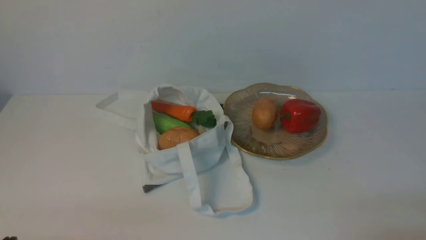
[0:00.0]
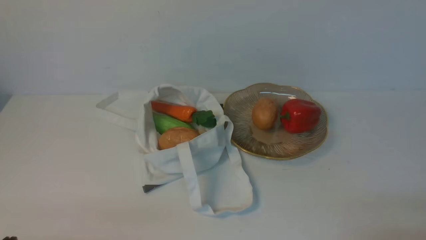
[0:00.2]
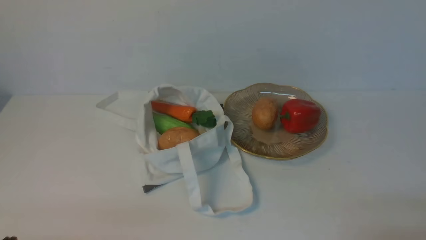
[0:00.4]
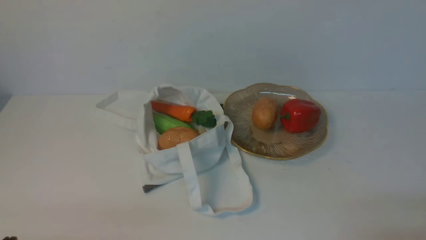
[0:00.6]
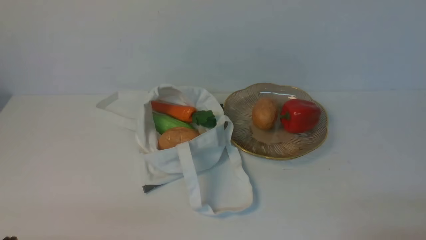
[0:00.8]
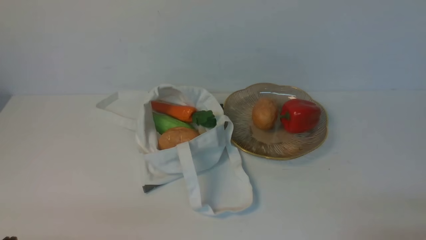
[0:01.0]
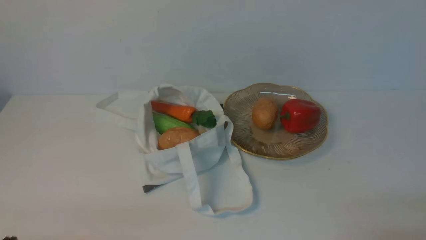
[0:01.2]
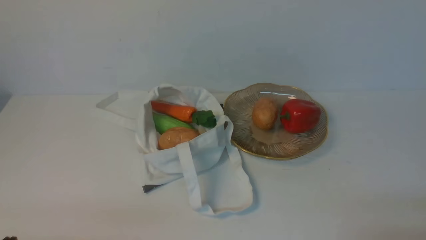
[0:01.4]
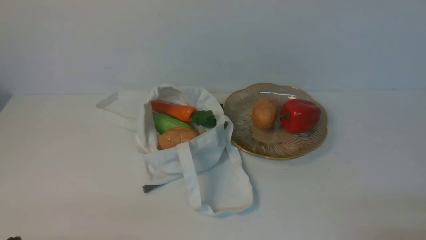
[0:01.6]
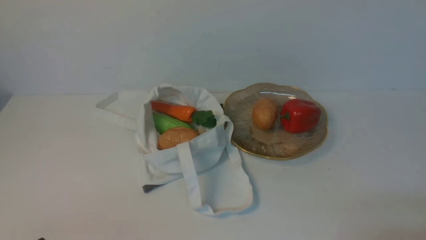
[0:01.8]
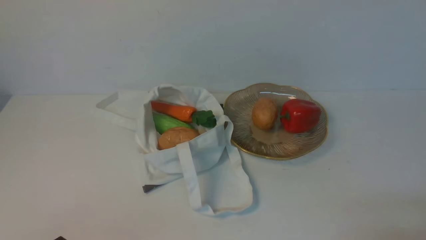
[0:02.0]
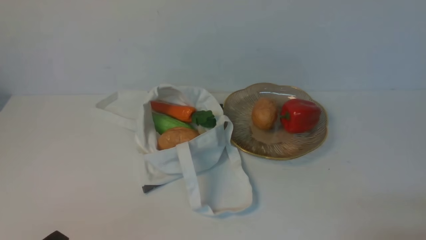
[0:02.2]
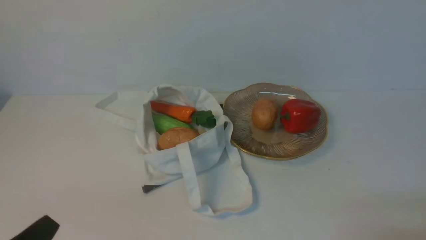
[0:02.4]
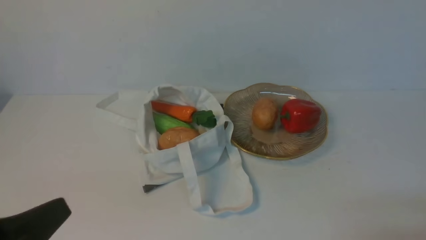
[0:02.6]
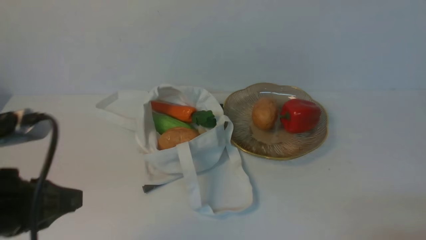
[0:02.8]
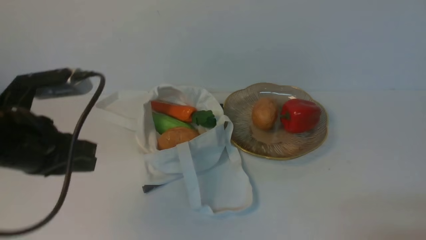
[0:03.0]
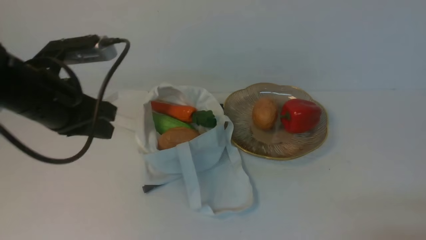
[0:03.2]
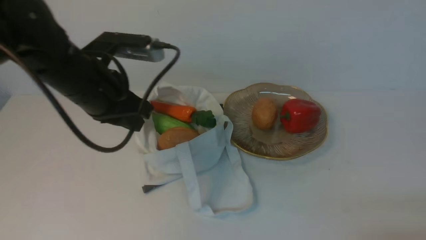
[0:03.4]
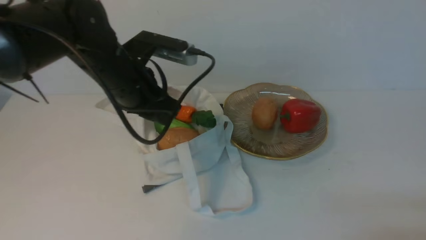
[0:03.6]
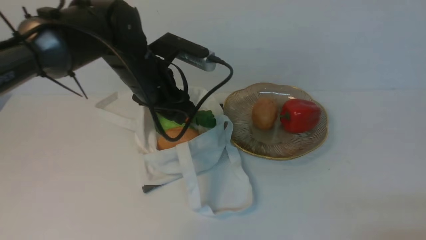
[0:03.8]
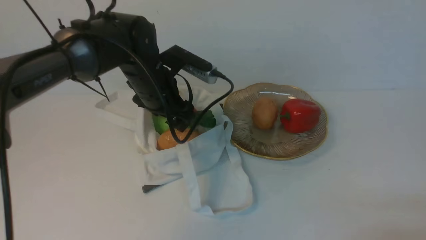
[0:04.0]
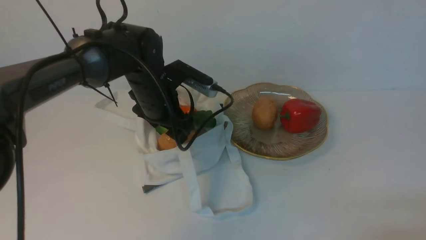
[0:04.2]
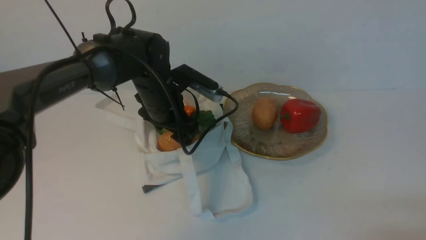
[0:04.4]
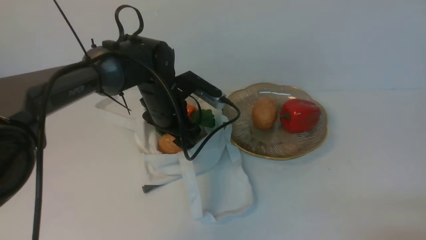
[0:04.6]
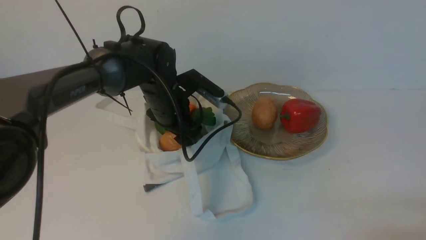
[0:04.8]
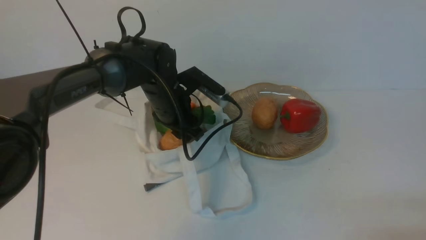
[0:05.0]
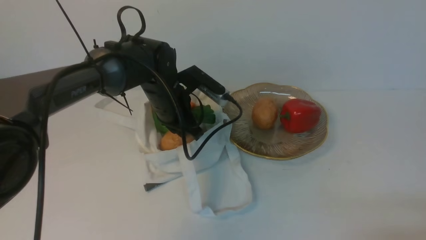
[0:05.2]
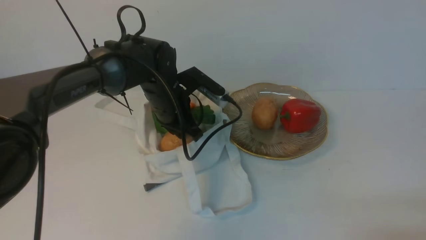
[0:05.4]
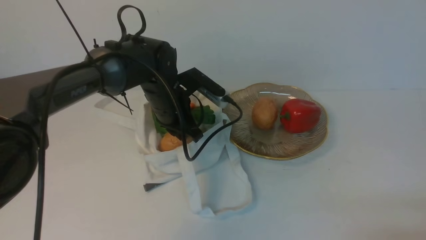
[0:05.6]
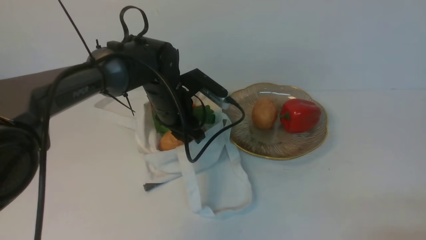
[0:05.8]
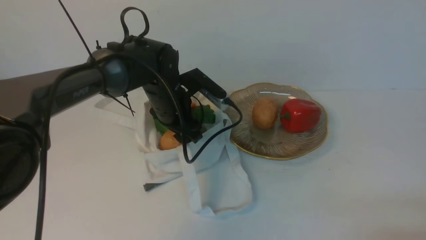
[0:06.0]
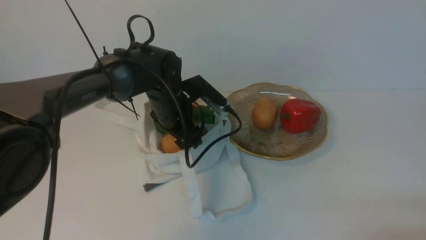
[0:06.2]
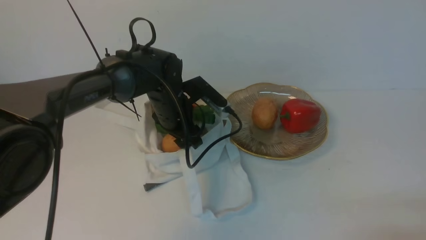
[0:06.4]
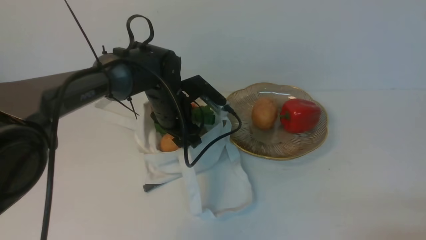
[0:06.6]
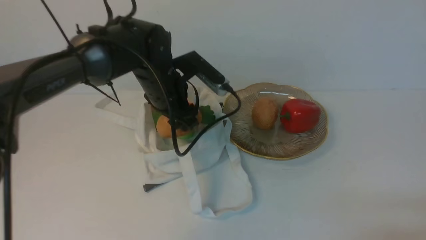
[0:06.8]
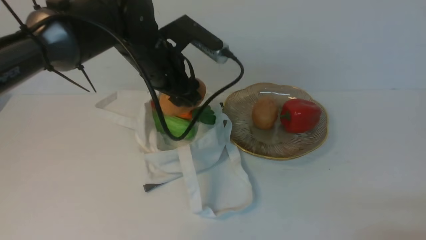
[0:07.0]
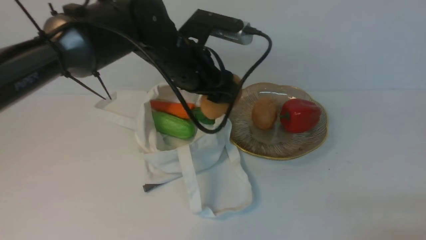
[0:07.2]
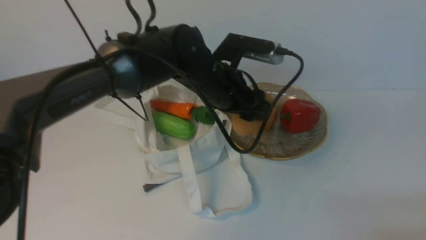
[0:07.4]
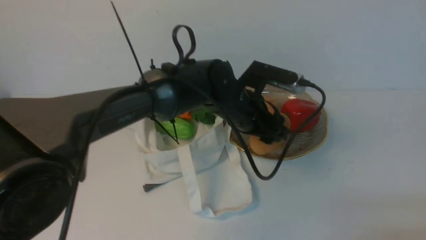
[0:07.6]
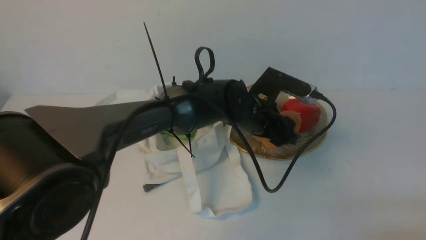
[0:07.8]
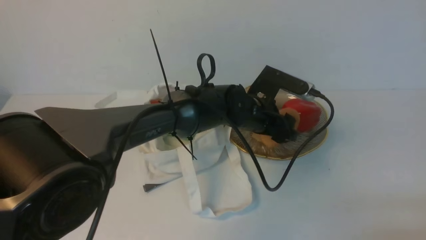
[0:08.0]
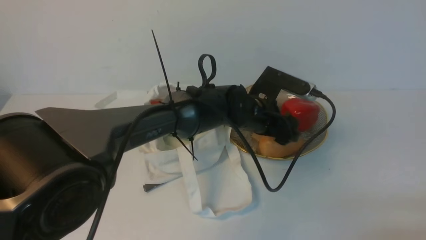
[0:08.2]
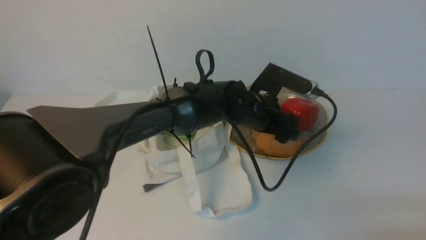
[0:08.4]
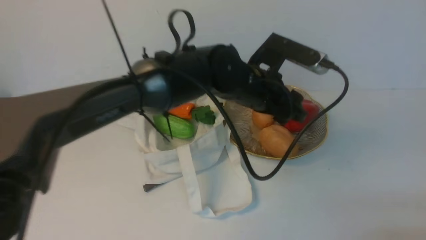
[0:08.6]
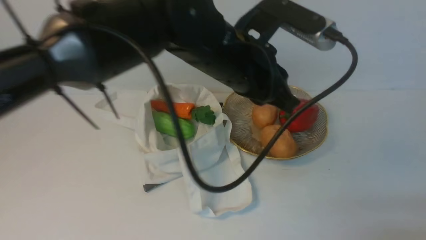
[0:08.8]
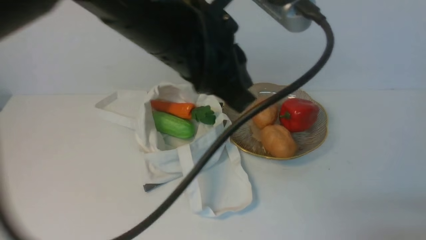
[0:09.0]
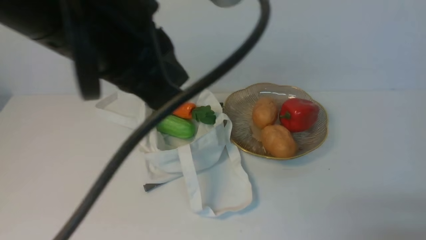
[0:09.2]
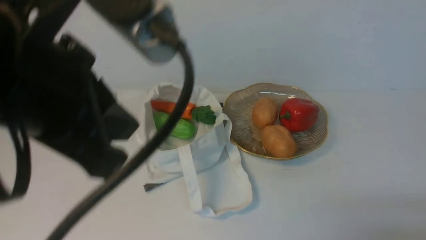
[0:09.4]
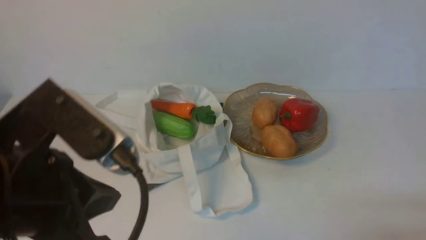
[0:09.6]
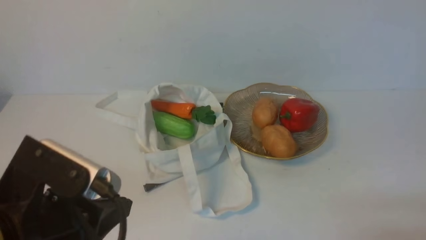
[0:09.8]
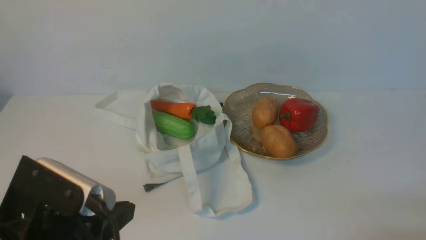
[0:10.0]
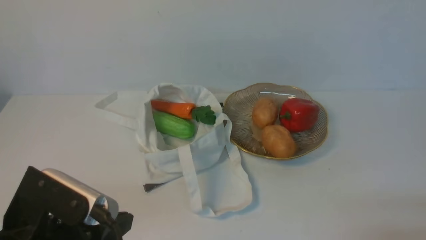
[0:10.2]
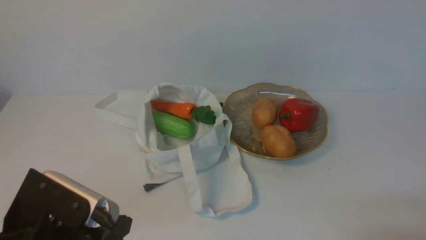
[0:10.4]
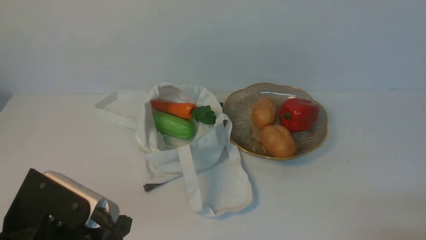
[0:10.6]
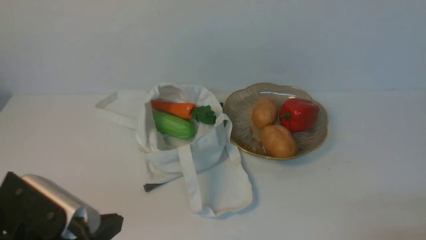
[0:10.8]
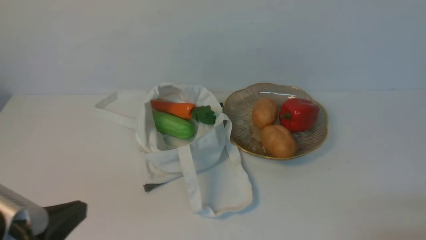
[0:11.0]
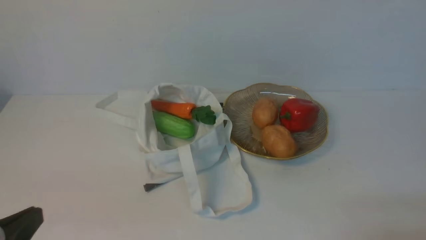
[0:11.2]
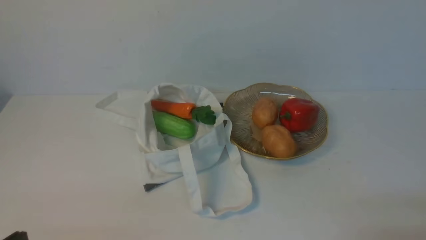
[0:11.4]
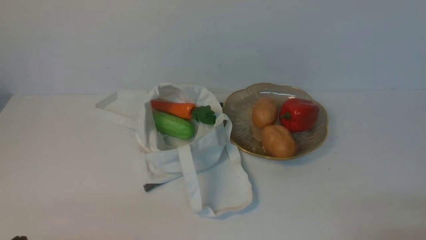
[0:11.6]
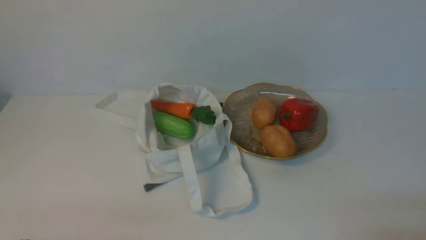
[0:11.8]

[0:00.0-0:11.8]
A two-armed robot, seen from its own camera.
Task of the whole recording: take vegetables from cloth bag on white table place on plate.
Step, 0:00.0 to 0:06.4: Grasp the potato with left gripper.
Step, 0:06.6 to 0:08.4: Place the potato on the plate with left gripper.
0:00.0 to 0:01.4: Both grippers stay about where they are.
0:01.4 to 0:03.0: The left gripper is displaced forward and upward by some 25 cm.
0:03.0 to 0:04.4: The left gripper moves forward, to the right and downward, approximately 25 cm, and opens.
0:04.4 to 0:06.0: The left gripper closes, then reopens.
0:06.0 to 0:07.4: The left gripper travels to the right and upward by some 10 cm.
0:07.4 to 0:08.8: The left gripper goes some 15 cm upward and backward, and closes.
0:08.8 to 0:10.4: The left gripper is displaced backward, to the left and downward by about 30 cm.
0:10.4 to 0:11.8: The left gripper moves to the left, downward and backward, approximately 10 cm.

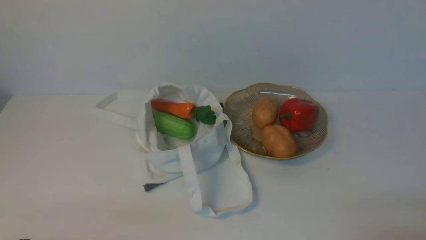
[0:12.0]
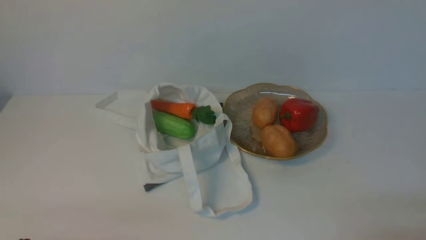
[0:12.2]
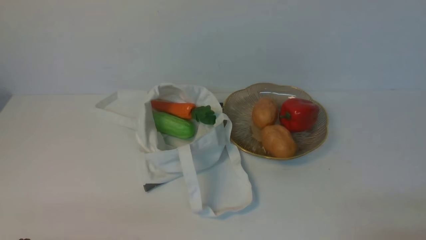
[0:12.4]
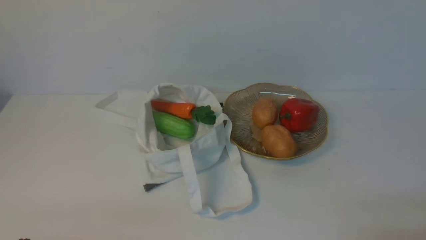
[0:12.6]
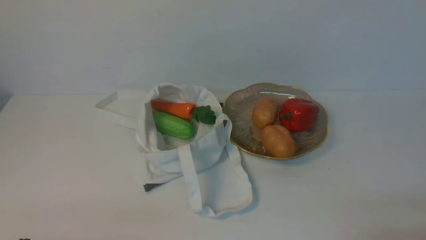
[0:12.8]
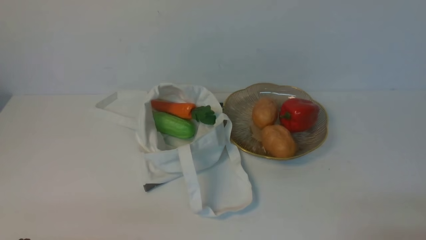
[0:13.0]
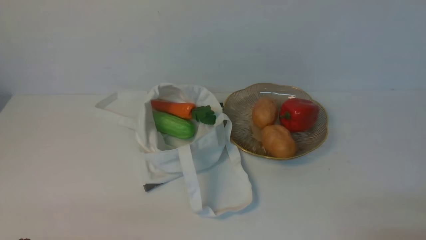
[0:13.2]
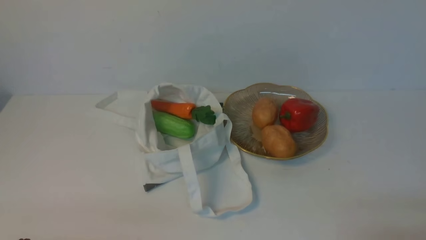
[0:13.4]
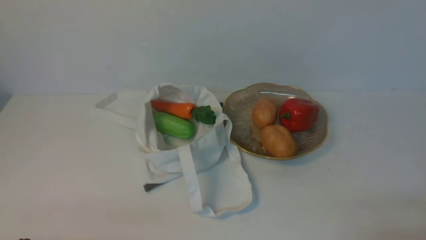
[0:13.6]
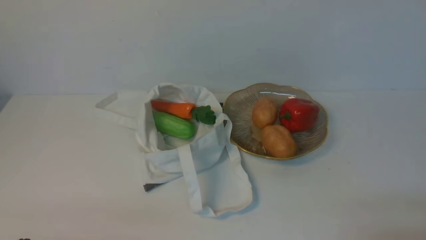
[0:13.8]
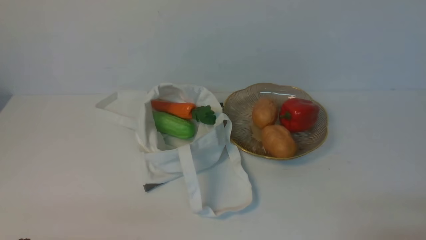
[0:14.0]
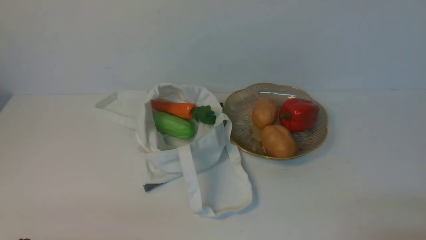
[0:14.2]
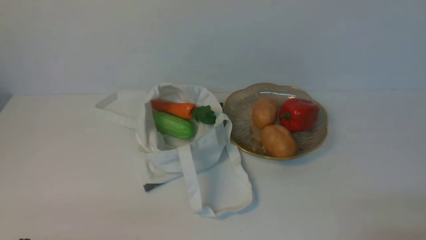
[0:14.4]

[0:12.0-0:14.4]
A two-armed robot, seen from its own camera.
Task of the whole recording: take vegetables from cloth bag on white table place on plate.
0:12.0 to 0:14.4: The two grippers keep their place.

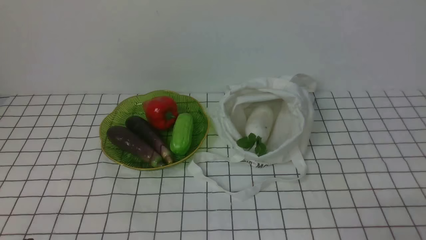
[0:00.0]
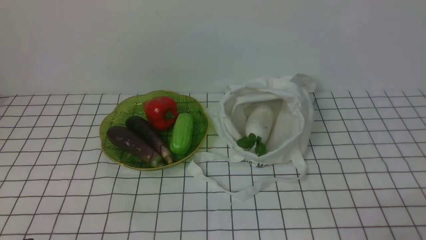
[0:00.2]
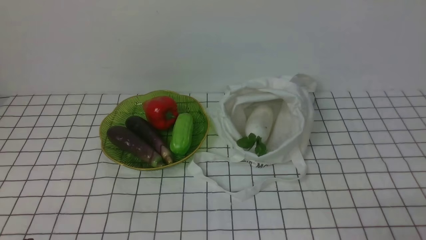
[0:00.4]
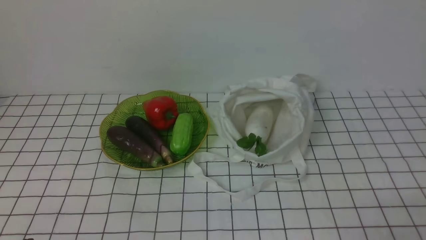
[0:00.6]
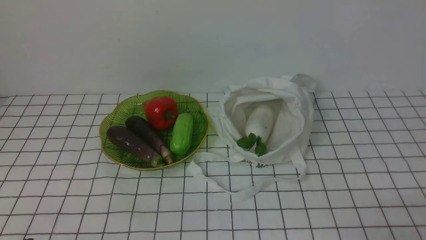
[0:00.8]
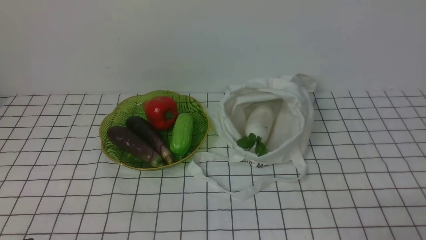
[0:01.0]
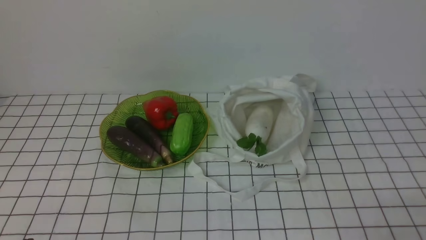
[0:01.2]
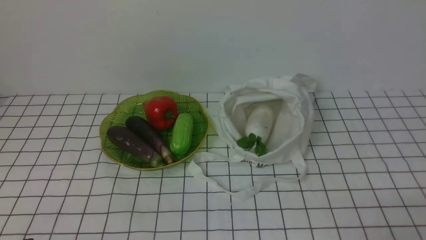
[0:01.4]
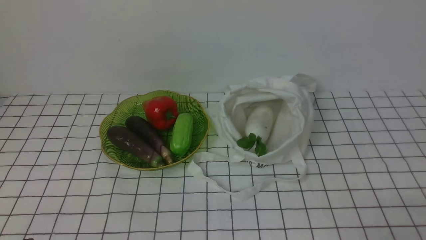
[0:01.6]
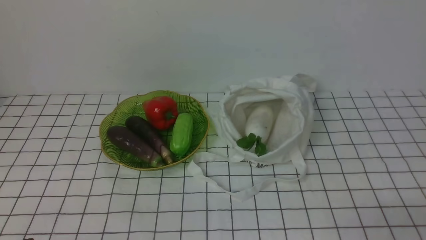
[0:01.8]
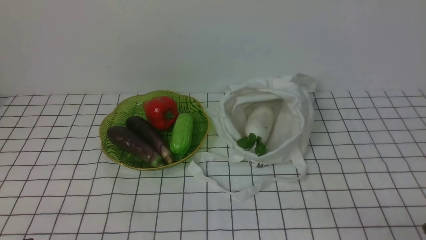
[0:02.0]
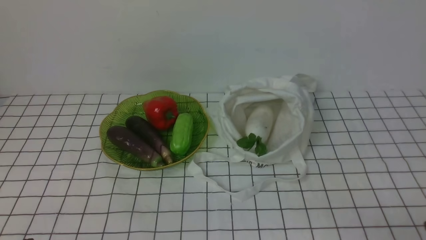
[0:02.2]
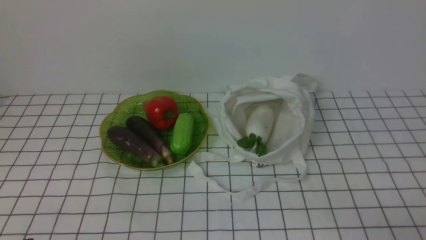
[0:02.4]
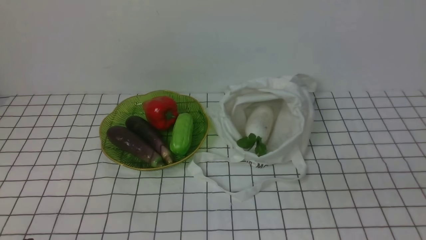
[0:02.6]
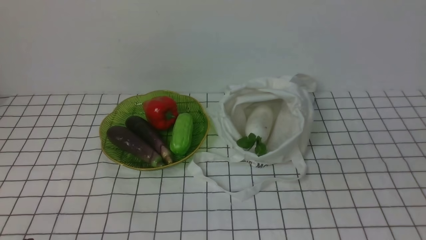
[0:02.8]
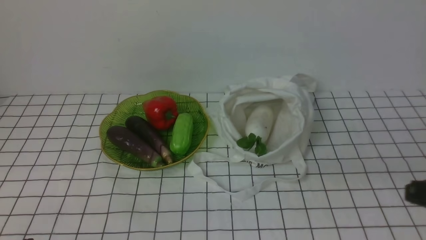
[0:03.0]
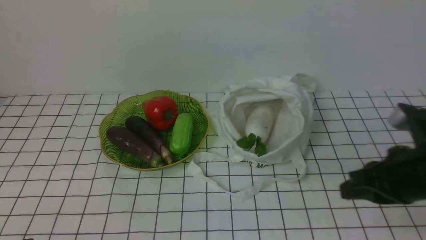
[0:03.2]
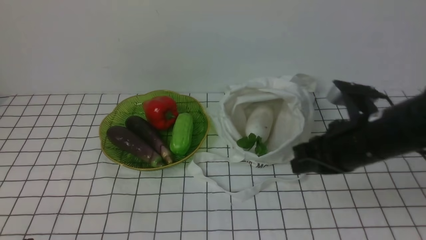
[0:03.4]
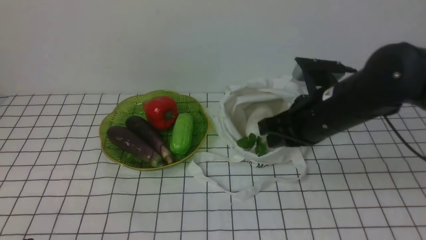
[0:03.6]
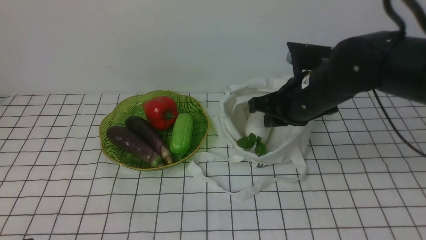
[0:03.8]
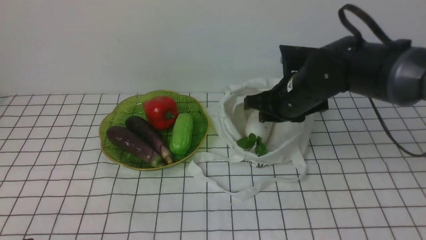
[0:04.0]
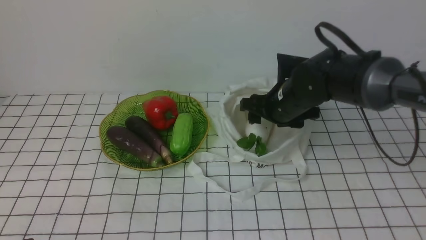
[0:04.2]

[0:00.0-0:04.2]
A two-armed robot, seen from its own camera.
Task of the whole recording: take vegetables from bag on white checkered tablecloth place on plate.
0:02.8 to 0:04.2: The right gripper is displaced forward and to the left by approximately 35 cm, and opens its fingers.
